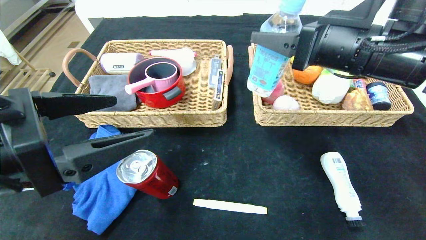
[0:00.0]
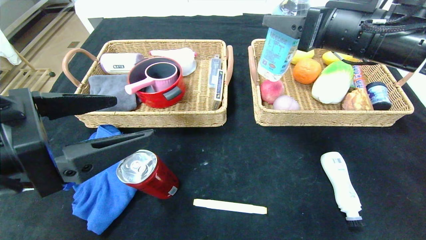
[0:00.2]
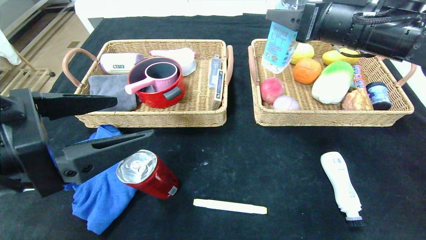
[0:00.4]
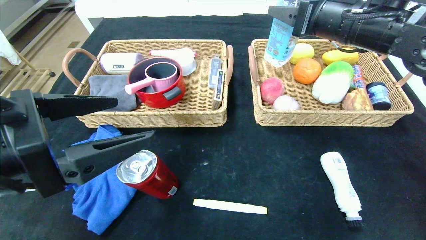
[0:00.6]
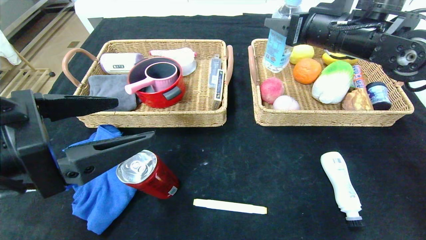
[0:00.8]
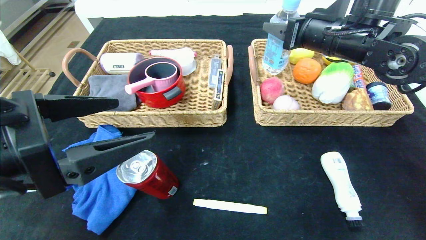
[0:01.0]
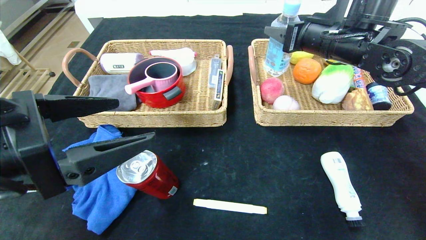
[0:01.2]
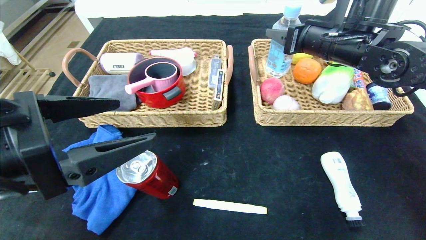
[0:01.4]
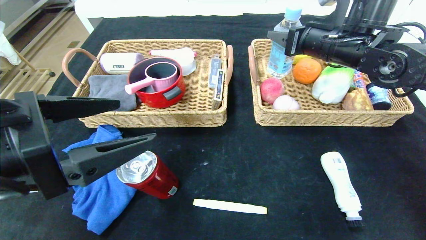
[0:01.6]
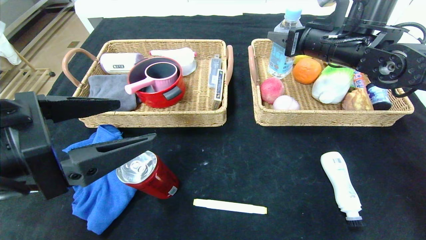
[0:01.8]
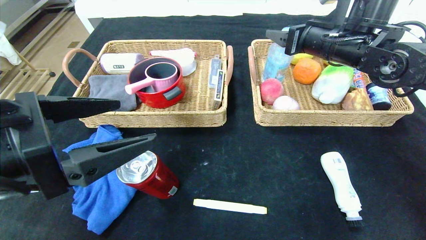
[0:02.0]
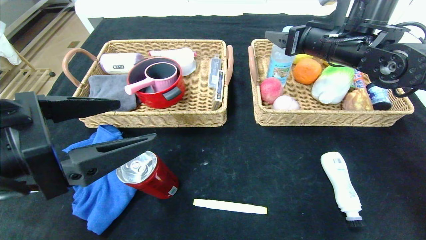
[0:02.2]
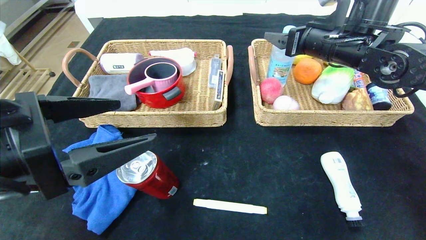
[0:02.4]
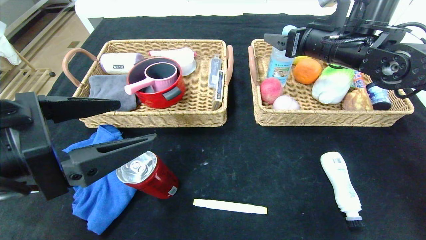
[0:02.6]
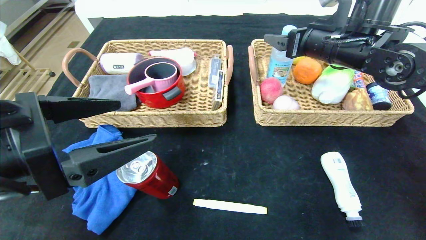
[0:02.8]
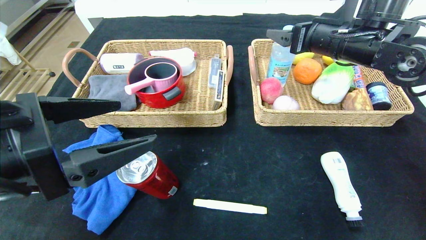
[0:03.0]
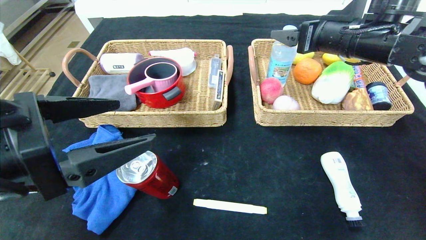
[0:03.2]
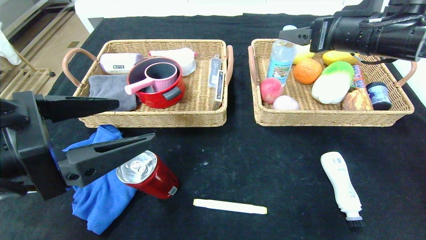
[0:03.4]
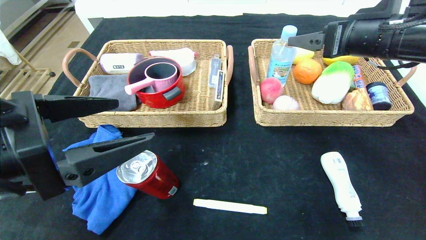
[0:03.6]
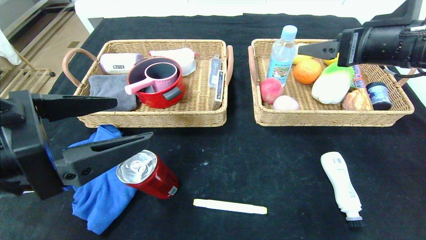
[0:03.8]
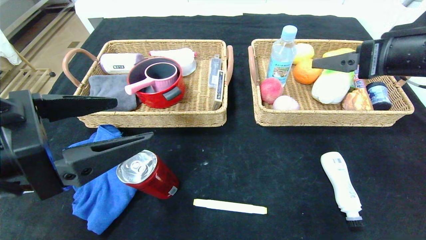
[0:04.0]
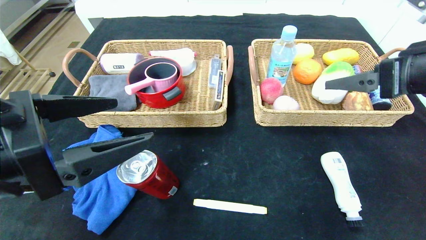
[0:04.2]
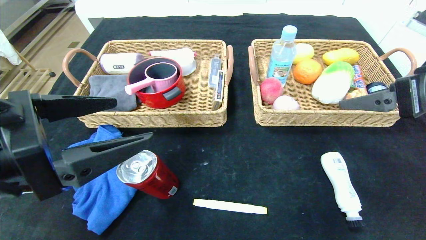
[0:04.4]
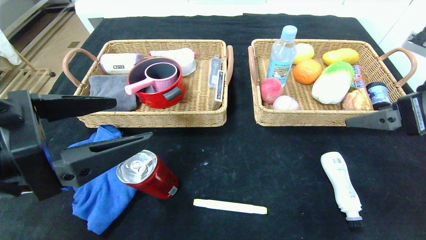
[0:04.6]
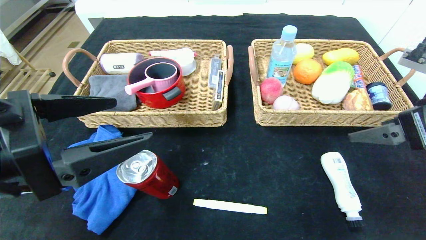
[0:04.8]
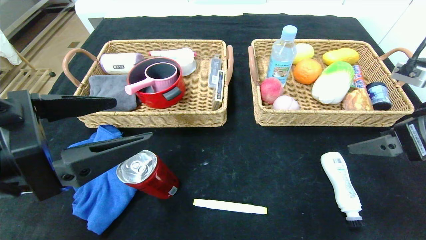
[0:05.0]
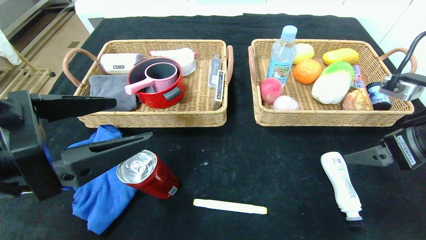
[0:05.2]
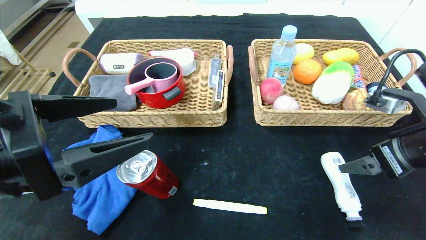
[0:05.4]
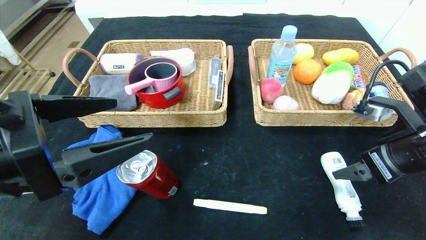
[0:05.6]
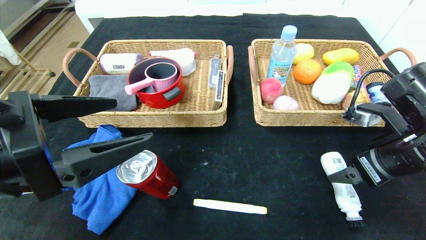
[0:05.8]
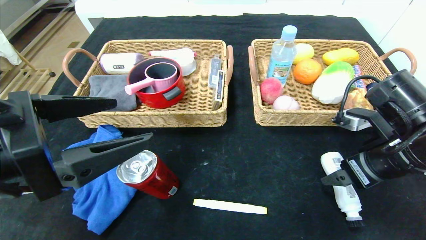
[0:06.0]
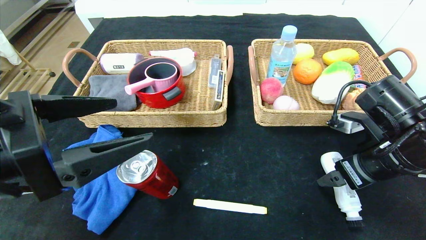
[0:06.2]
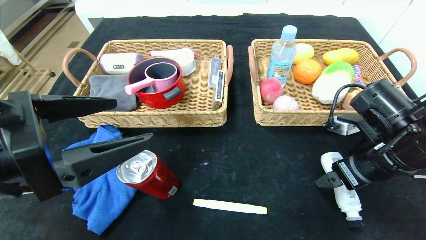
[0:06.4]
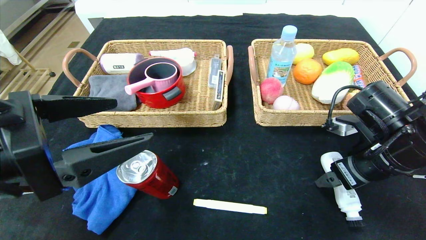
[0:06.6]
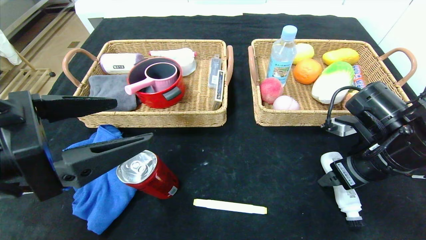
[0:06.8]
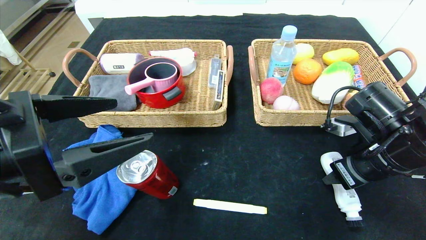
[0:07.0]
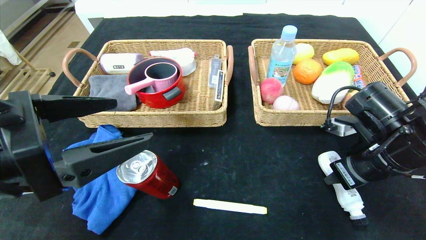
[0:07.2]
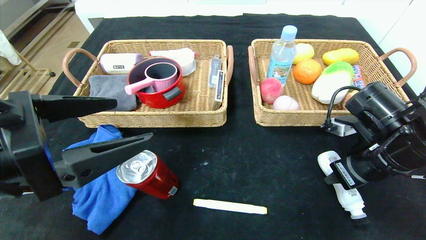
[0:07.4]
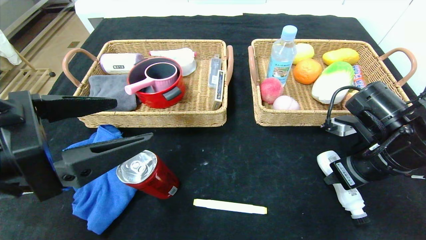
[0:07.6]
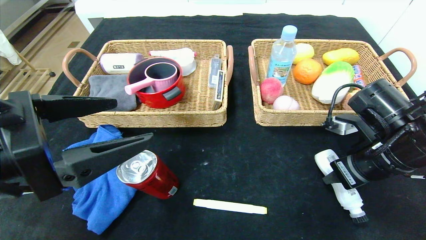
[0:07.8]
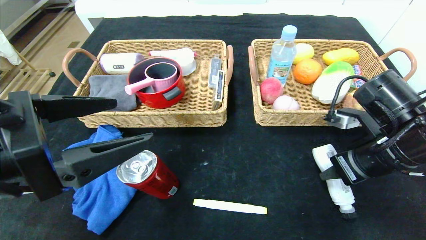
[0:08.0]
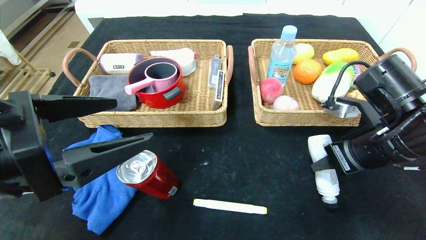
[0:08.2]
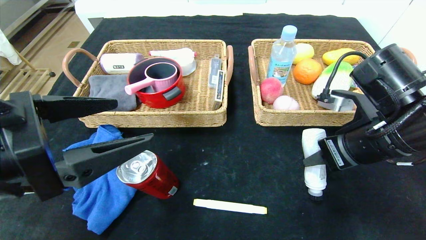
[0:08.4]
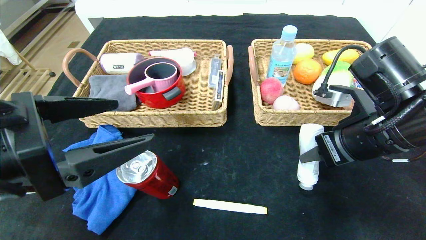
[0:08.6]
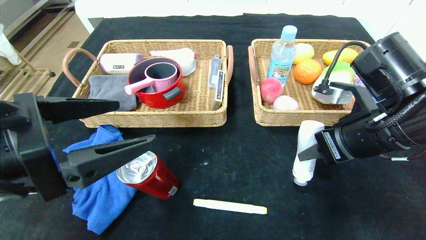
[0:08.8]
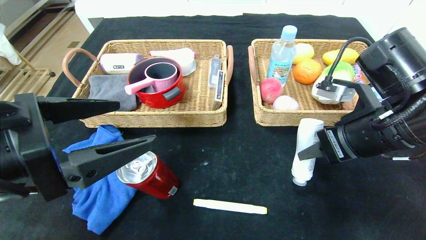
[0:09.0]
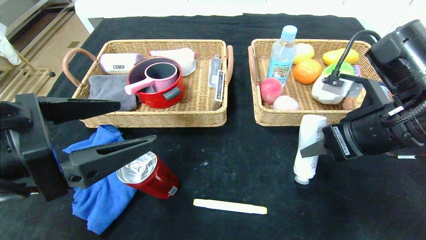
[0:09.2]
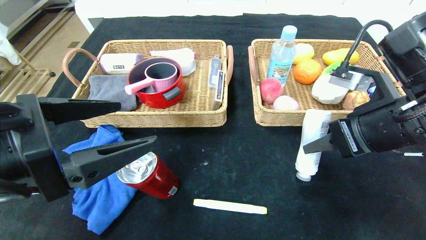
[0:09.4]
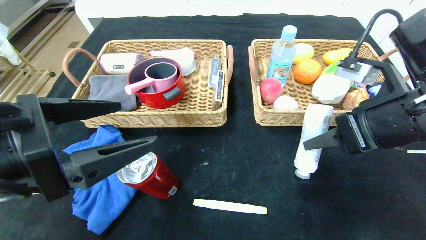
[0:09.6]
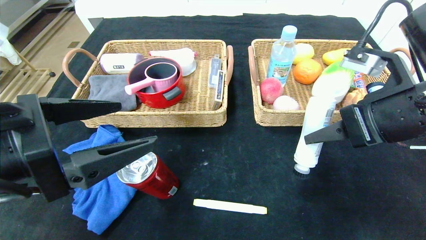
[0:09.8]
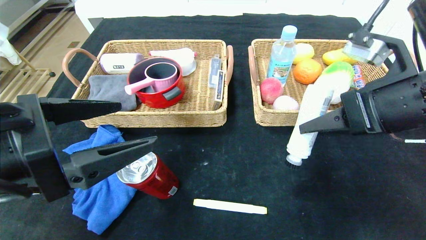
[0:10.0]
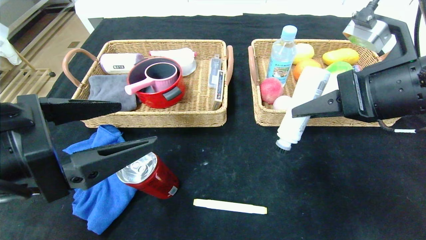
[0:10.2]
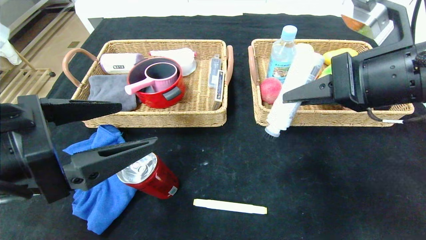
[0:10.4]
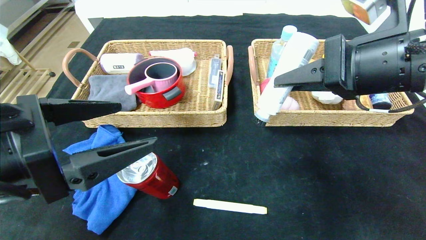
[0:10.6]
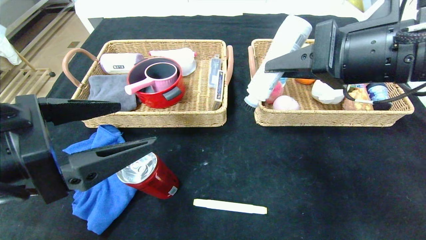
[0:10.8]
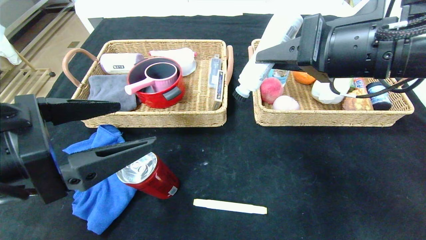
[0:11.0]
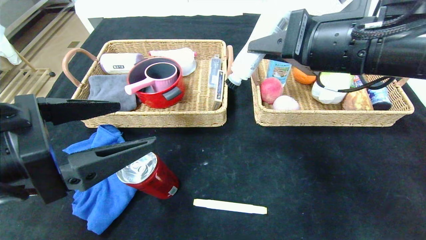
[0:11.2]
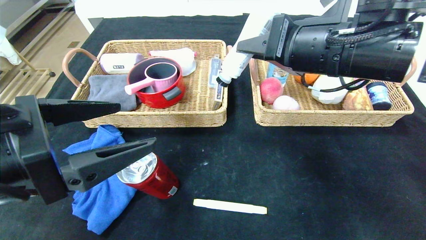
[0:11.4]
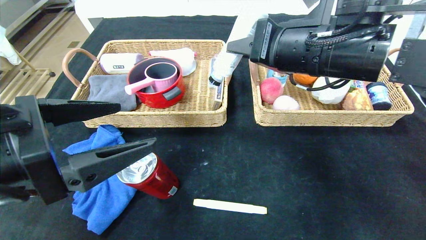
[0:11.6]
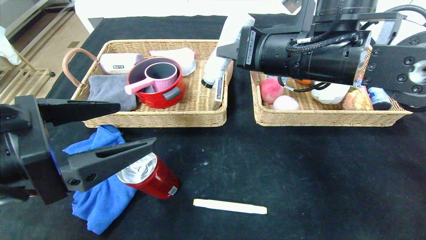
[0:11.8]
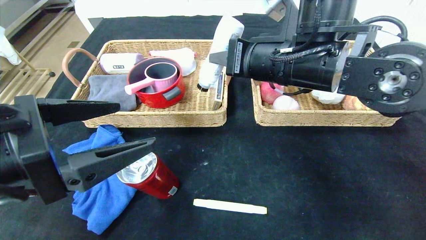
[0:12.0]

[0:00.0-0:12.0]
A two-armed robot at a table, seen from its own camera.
Step, 0.0 to 2.4 s: Grasp the soda water and put it in the right basket.
0.0 to 1.6 s: The right gripper is displaced forward by approximately 10 cm.
1.6 to 3.0 s: The right gripper opens.
3.0 to 4.4 s: The right gripper travels backward and to the right by approximately 20 cm.
4.4 to 6.0 s: The right gripper travels downward by some 10 cm.
6.0 to 7.6 s: The right gripper closes.
7.6 to 9.0 s: The right gripper moves upward, about 5 cm.
9.0 to 10.4 s: The right gripper moves upward, some 5 cm.
10.4 to 12.0 s: The right gripper heads to the left and forward, covering about 15 cm.

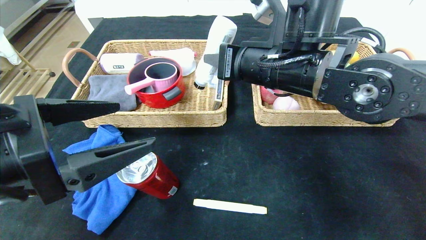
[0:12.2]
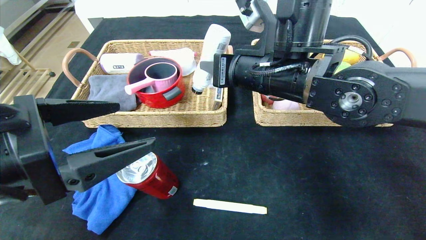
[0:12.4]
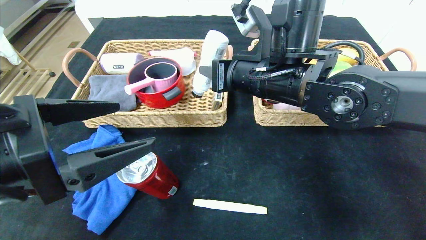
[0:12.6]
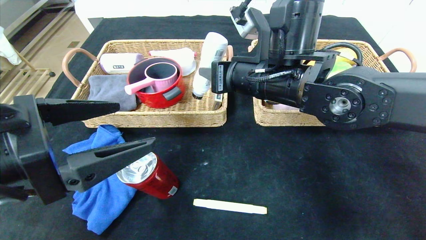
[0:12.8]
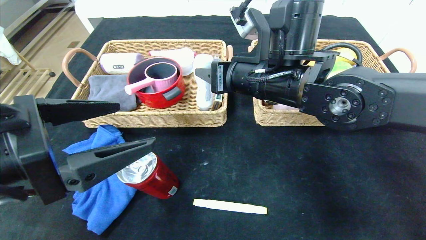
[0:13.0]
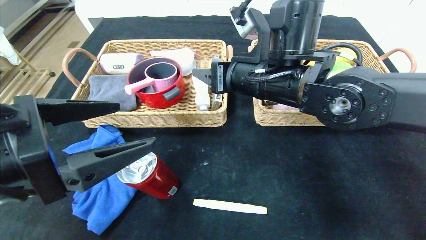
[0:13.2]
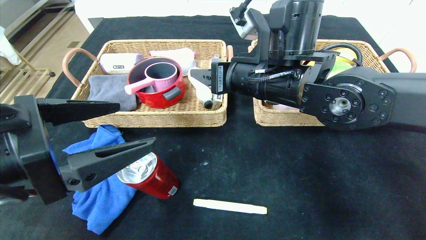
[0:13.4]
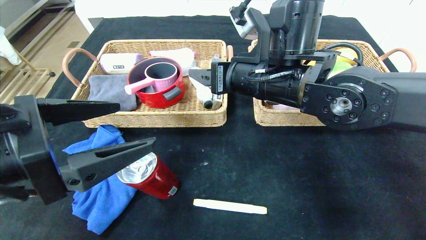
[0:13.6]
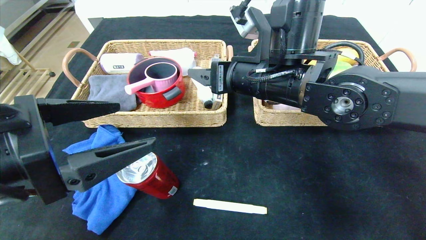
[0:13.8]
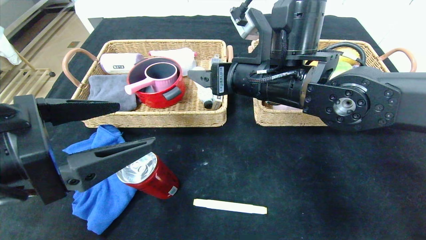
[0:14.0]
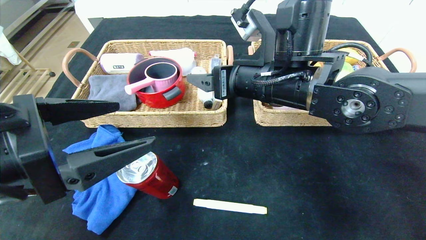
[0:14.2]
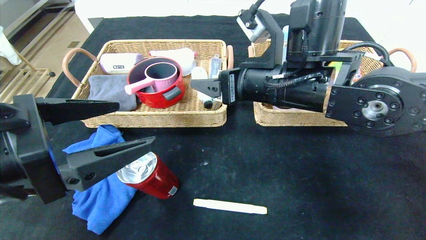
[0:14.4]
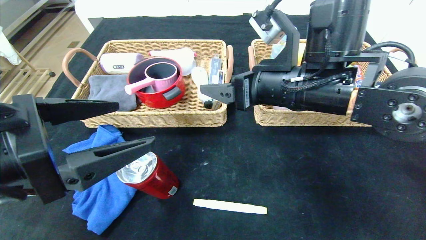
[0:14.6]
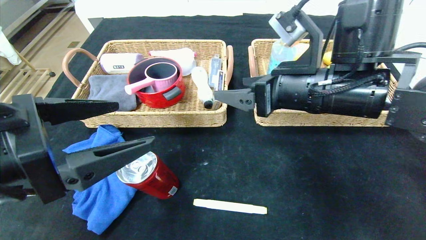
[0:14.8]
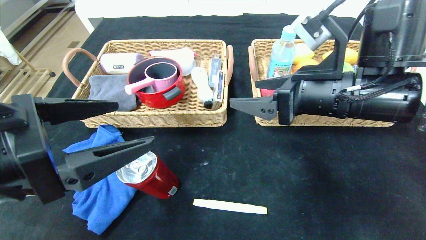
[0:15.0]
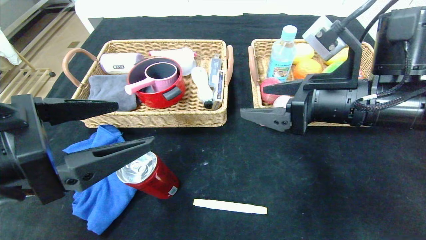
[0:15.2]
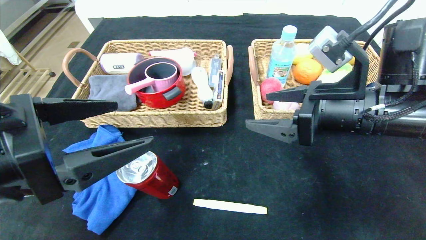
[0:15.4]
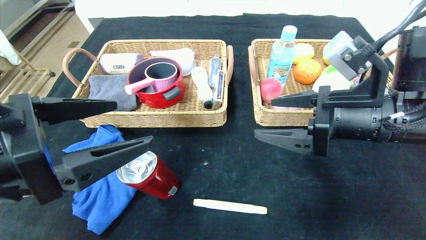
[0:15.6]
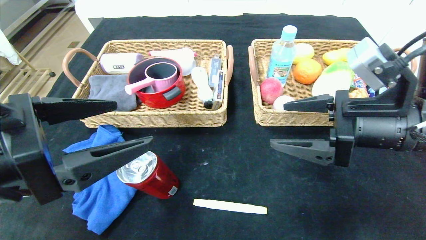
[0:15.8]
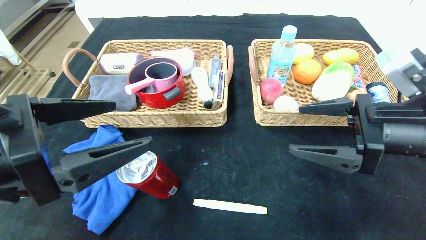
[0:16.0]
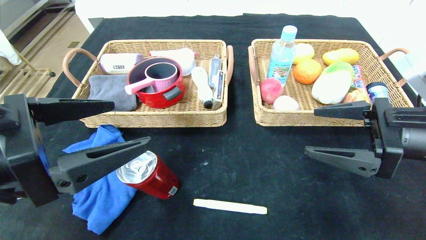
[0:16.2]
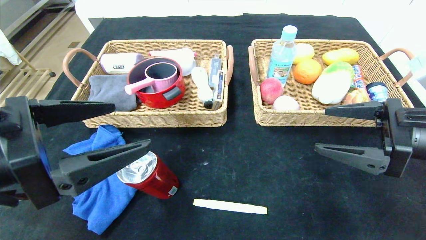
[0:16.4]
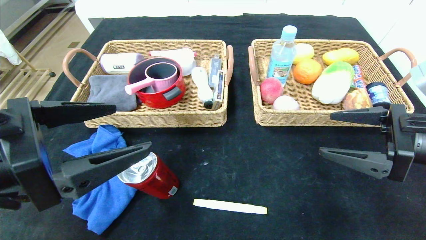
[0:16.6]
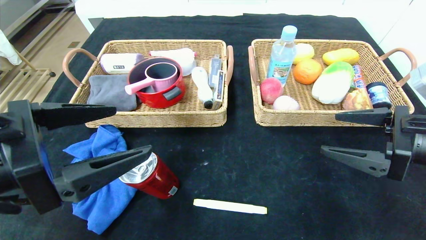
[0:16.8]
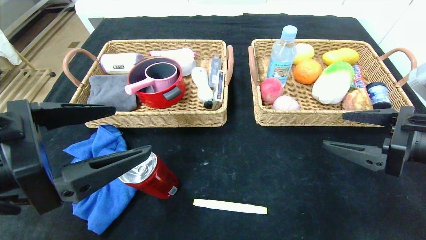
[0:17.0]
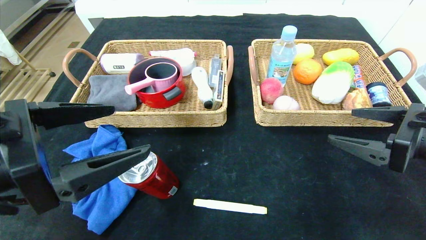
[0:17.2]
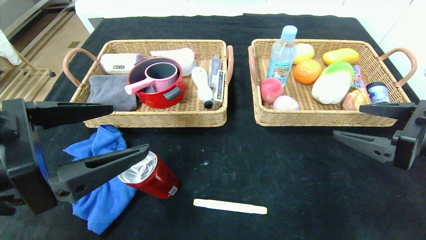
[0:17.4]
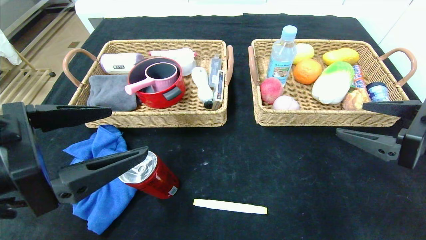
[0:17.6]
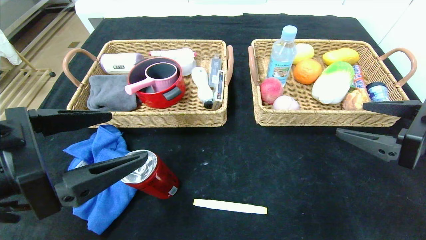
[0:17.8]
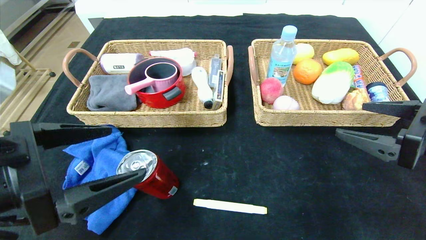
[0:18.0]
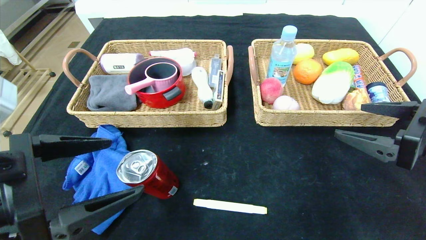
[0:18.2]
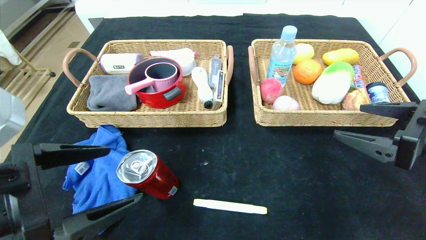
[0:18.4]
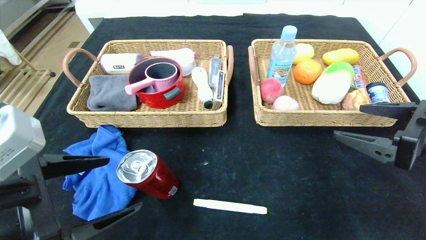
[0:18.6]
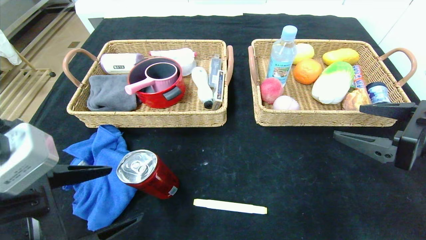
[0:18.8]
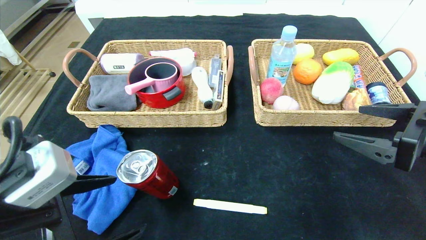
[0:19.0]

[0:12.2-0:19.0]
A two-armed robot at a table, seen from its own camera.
12.2 to 13.6 s: The right gripper opens up.
13.6 to 15.0 s: The right gripper goes about 10 cm to the right and backward.
15.0 to 16.2 s: The right gripper shifts roughly 10 cm to the right and backward.
17.6 to 19.0 s: The left gripper moves downward, about 5 cm.
